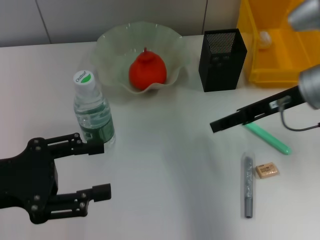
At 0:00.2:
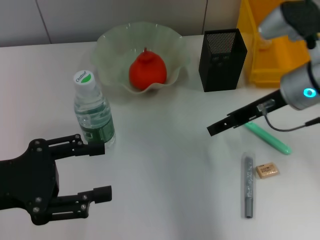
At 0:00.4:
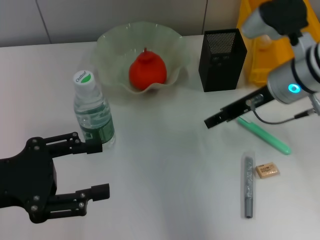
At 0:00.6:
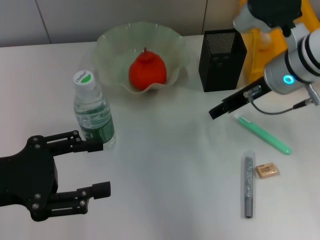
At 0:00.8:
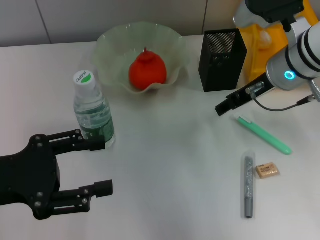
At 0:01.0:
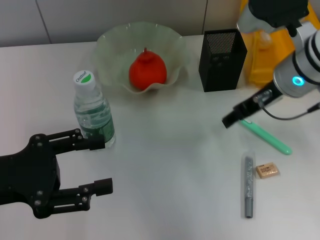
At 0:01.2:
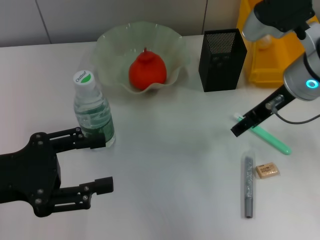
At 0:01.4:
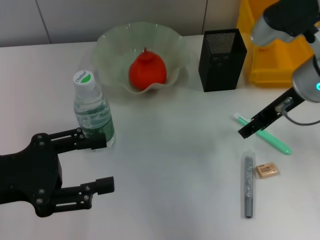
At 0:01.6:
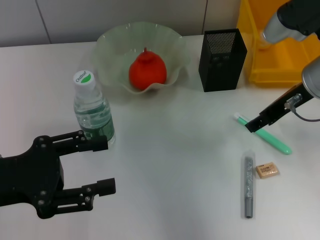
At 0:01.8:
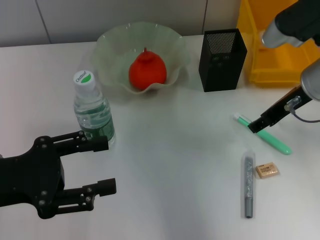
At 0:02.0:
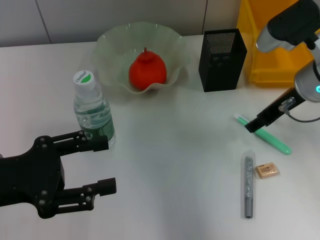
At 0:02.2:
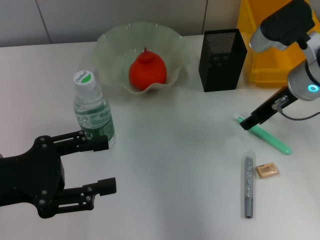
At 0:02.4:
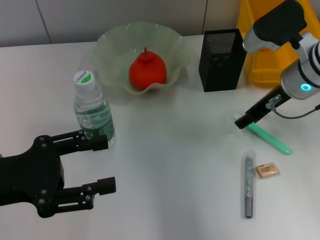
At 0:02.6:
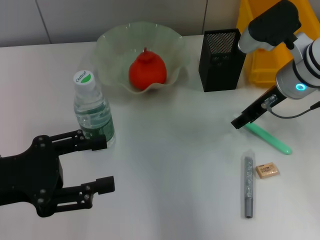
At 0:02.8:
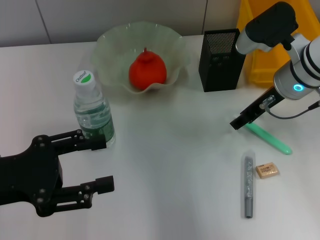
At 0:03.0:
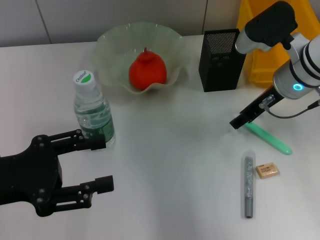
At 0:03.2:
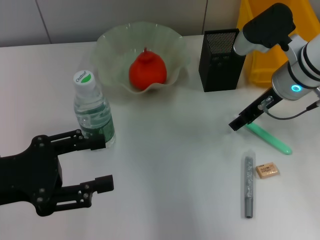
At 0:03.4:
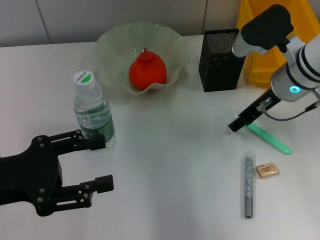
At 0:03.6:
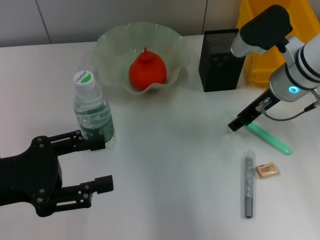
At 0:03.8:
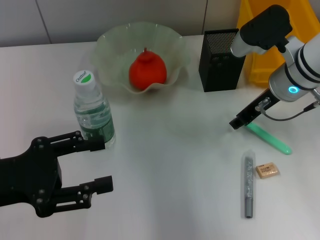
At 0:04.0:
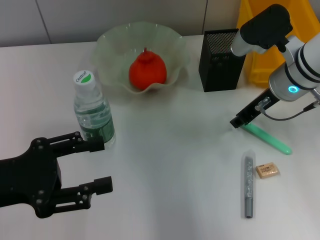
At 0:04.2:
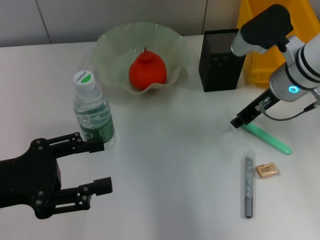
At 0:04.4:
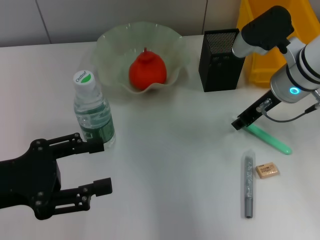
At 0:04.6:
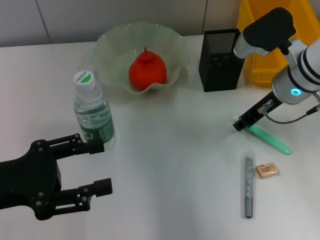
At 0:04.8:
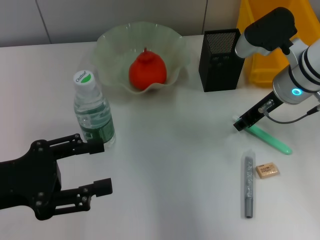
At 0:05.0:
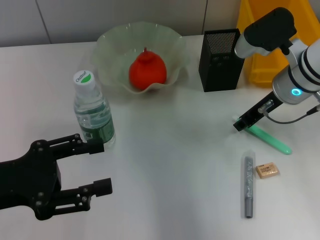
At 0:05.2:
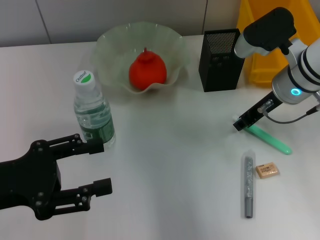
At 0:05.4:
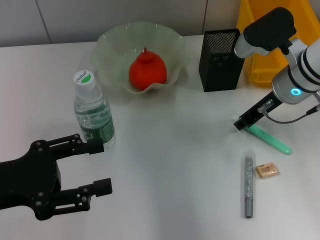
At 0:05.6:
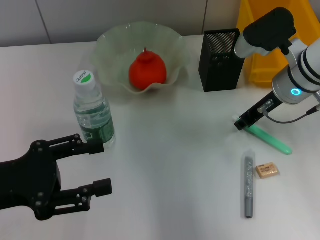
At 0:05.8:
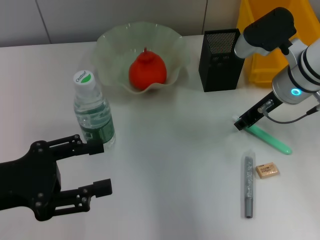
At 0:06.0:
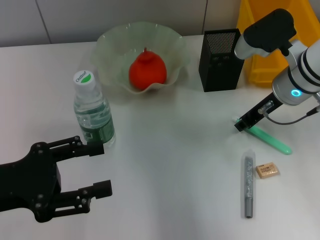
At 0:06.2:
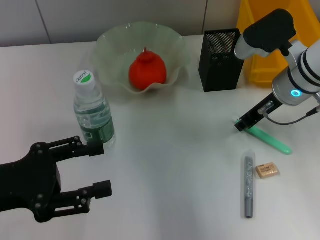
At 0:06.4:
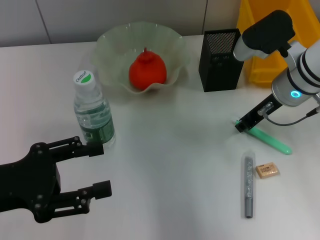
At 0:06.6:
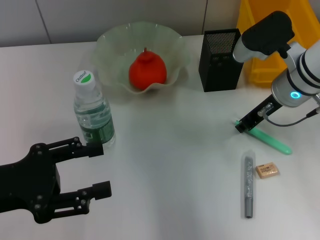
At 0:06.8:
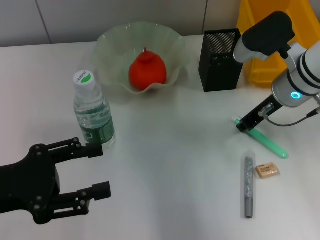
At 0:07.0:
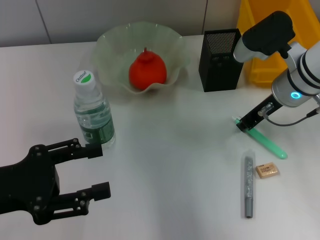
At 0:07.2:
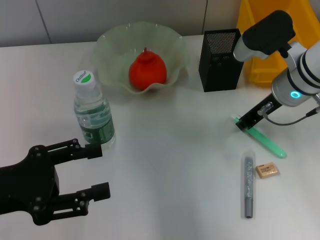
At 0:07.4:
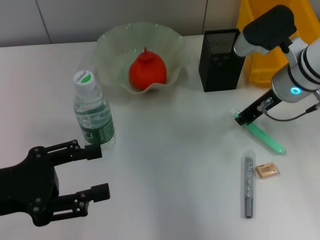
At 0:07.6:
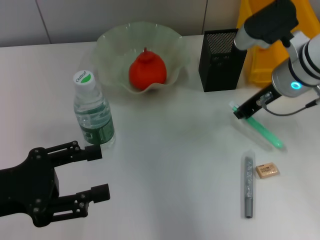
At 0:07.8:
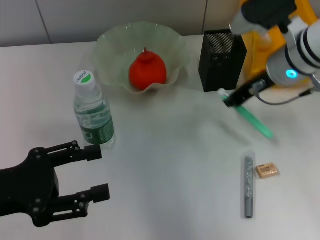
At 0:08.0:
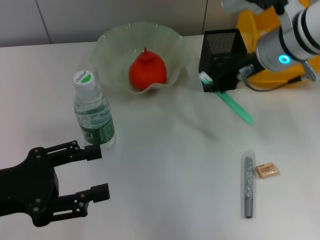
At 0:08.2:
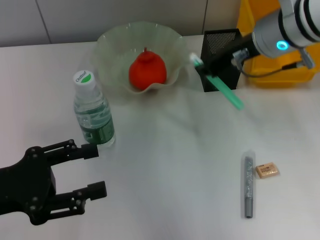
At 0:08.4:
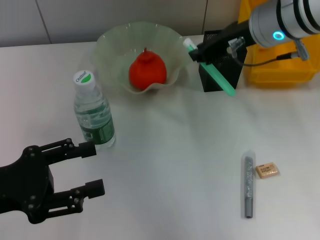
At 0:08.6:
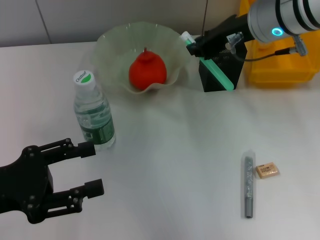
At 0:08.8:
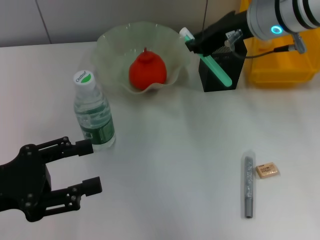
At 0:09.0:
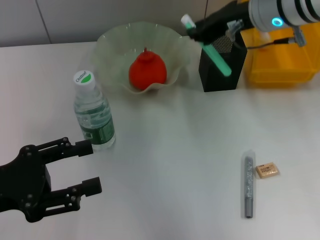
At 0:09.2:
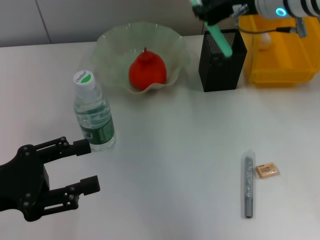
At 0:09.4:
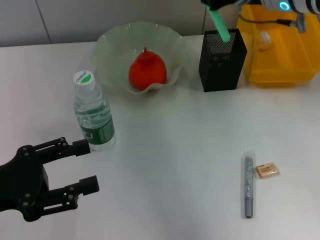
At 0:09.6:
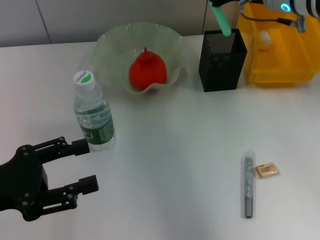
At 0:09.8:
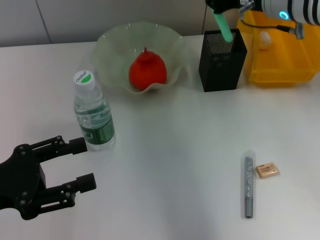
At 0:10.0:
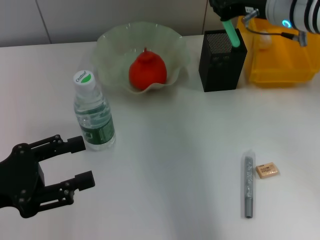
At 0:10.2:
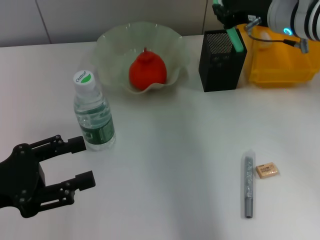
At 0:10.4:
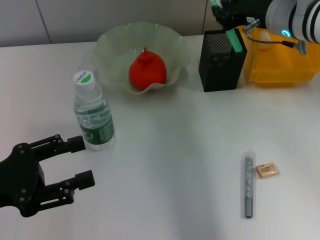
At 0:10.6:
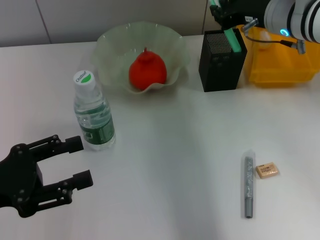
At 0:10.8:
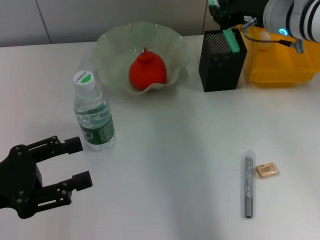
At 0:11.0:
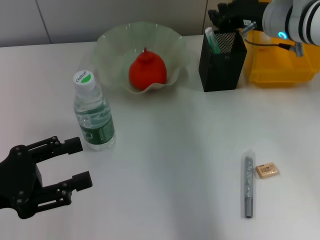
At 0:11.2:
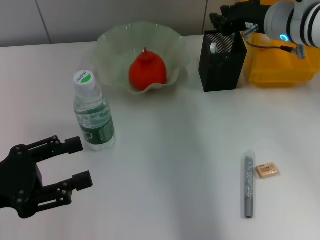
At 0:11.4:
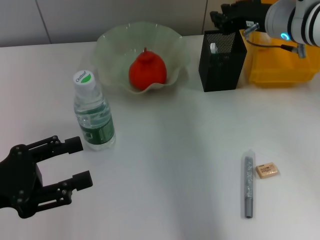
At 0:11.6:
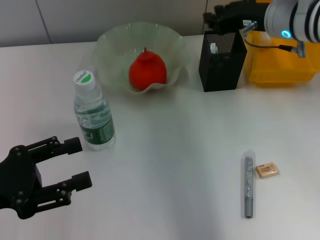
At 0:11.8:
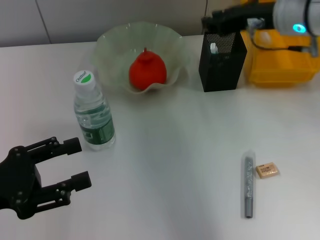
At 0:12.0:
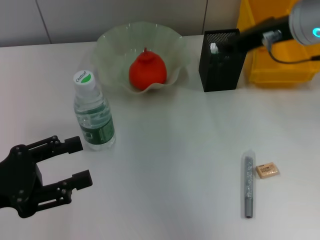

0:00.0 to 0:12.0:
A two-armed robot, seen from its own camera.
Step, 0:00.0 to 0:06.8: Grab the blue utility knife with the right hand.
Step, 0:07.0 to 0:11.0: Place the blue utility knife into the pen holder with the right hand.
0:01.6 to 0:03.0: The right gripper ends up some 5 cm from where it was.
0:03.0 to 0:04.4: The right gripper closes its fingers.
0:04.4 to 0:06.0: Both grippers stay put.
0:06.0 to 0:07.6: The grippers make only small movements.
0:07.6 to 0:09.0: The right gripper travels upward by some 10 cm.
0:09.0 to 0:10.4: The right gripper travels downward by roughly 5 cm.
0:10.4 to 0:12.0: The right gripper is displaced upward and backward by about 10 cm.

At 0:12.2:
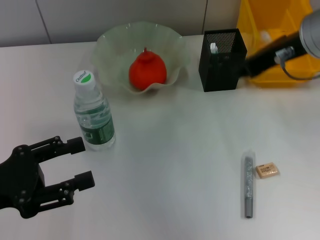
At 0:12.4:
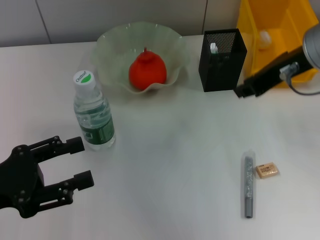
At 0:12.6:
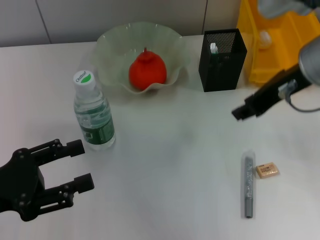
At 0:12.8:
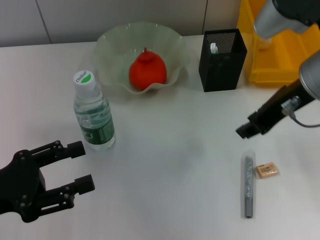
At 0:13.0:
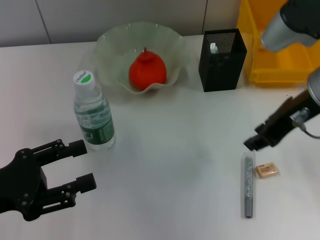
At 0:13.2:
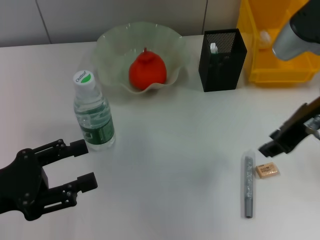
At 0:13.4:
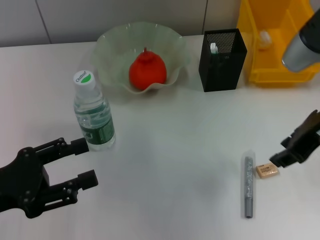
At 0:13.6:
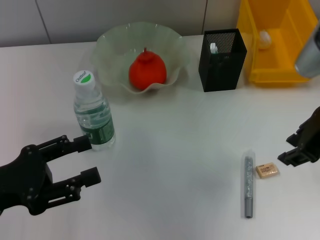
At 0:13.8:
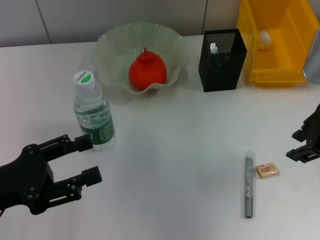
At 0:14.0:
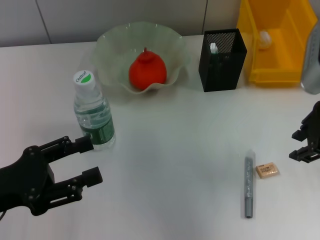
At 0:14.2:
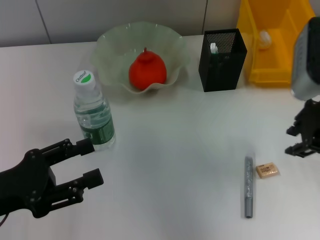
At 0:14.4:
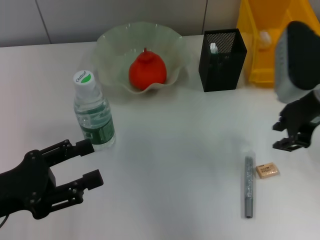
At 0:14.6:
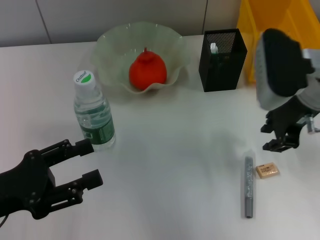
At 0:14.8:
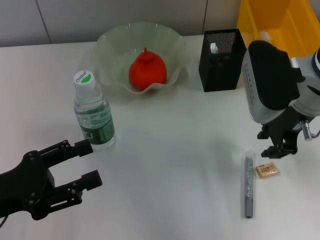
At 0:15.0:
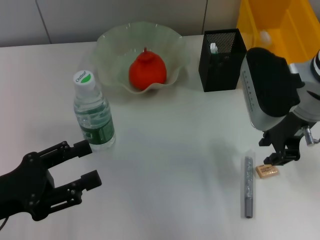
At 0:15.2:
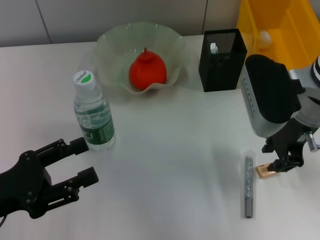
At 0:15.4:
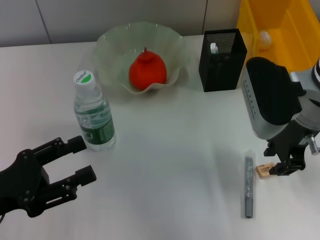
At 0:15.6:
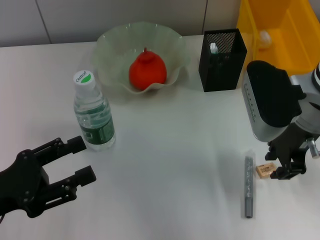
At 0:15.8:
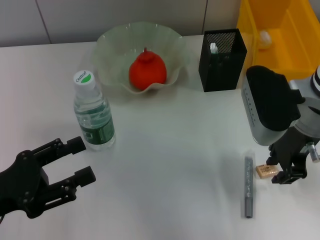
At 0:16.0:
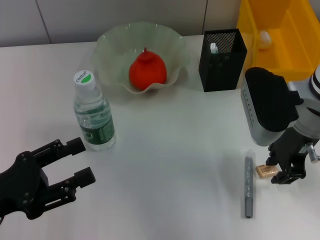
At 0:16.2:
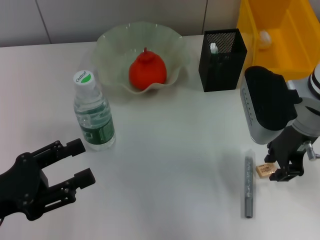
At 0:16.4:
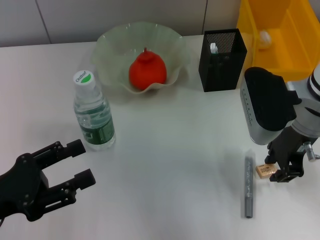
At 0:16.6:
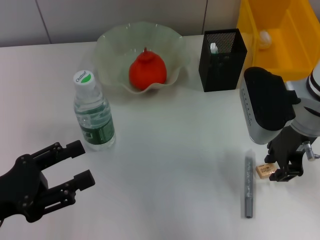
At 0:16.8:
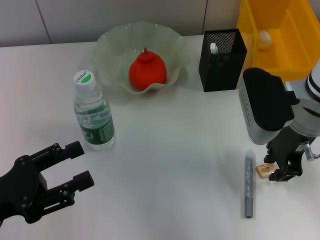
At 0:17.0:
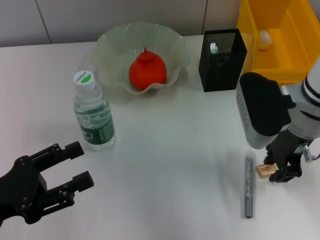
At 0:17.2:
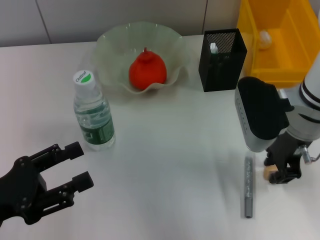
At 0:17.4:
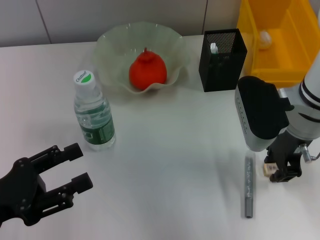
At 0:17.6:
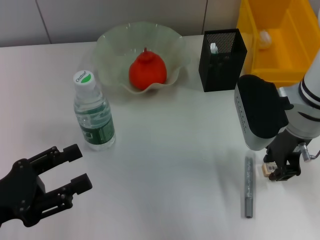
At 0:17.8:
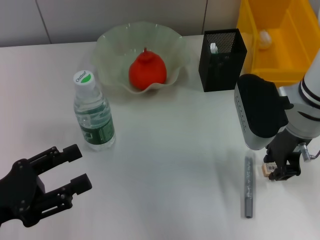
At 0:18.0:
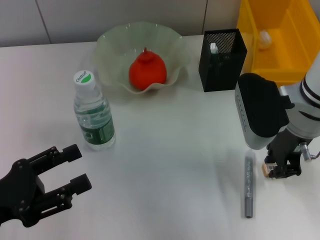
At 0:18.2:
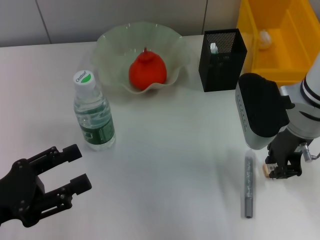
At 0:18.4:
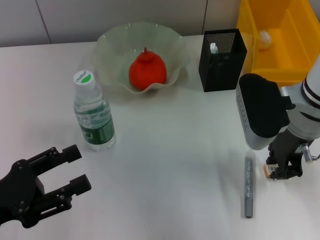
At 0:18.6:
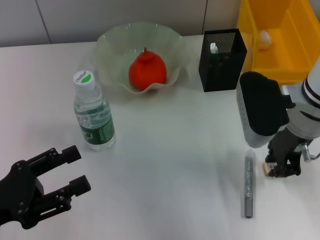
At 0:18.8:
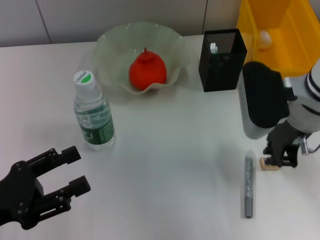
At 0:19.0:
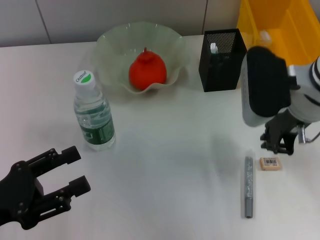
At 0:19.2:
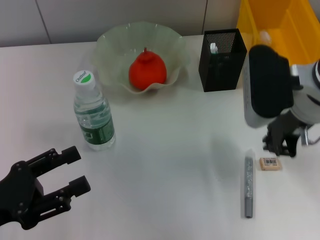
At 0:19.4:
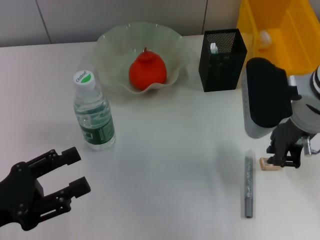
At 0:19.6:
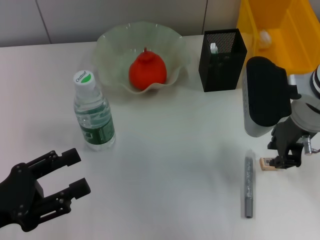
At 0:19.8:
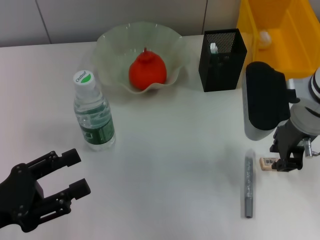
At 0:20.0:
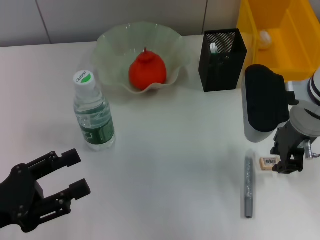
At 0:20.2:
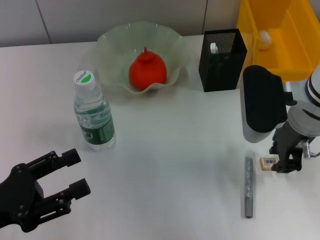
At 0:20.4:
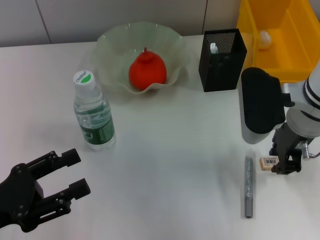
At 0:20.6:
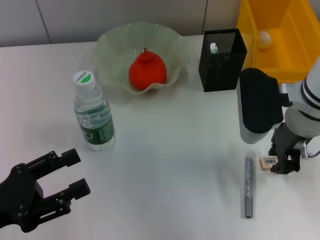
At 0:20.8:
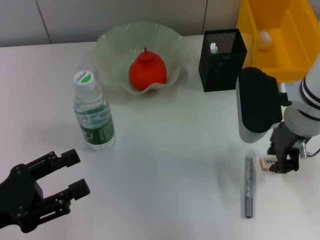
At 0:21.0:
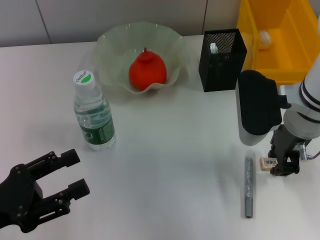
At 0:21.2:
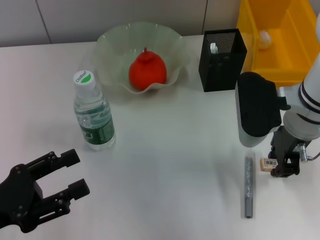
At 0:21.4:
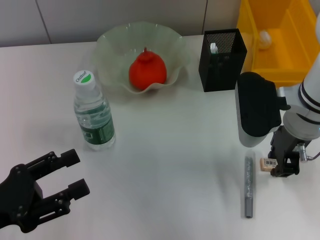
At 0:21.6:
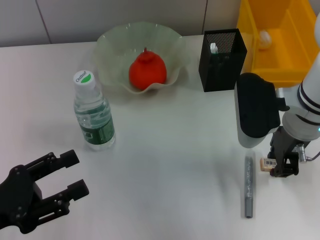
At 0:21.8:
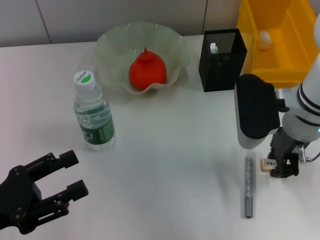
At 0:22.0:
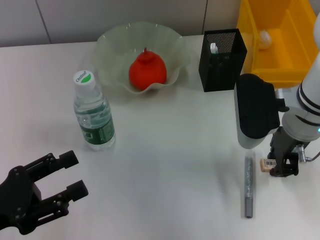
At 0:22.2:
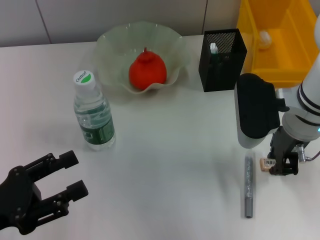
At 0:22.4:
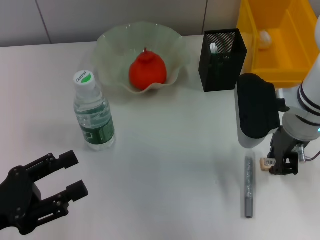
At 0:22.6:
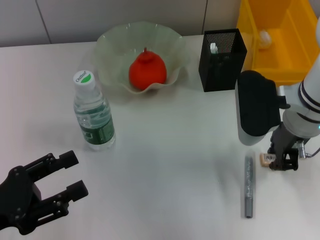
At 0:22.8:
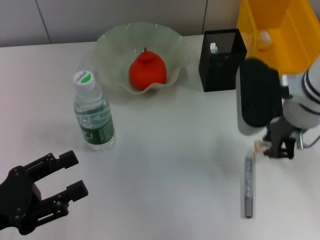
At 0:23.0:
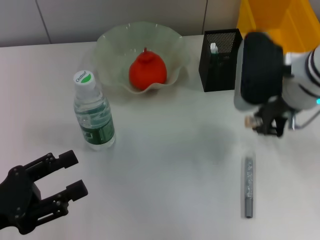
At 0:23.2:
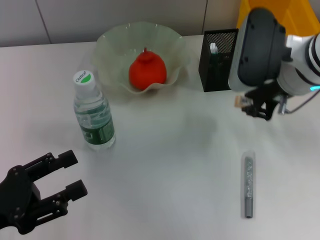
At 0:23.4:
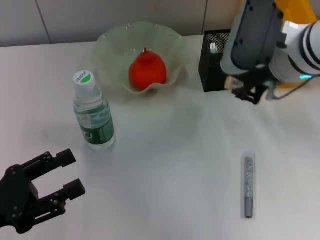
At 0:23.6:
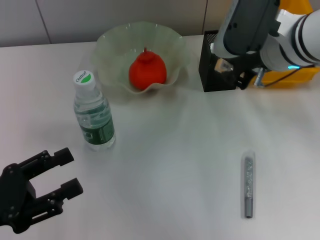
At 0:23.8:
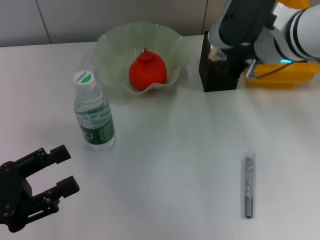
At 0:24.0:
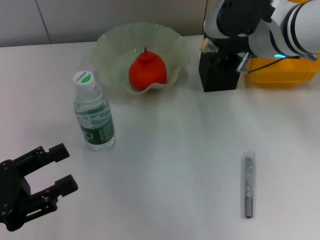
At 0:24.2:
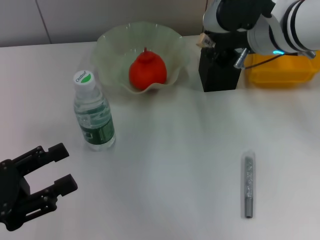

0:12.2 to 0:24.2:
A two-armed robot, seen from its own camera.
Step, 0:12.2 to 0:22.2: Grab the eraser with the right hand.
0:12.2 to 0:13.8: The right gripper is displaced backward by some 5 cm.
0:13.8 to 0:15.2: The right gripper heads to the left, covering some 5 cm.
0:15.2 to 0:16.6: The grippers stay close to where they were, moving slightly.
0:16.6 to 0:18.2: The two grippers keep their place.
0:18.2 to 0:21.2: There are only small adjustments of the grippers.
0:21.2 to 0:22.6: Both grippers stay put.
0:22.6 to 0:24.2: The right gripper moves upward, approximately 5 cm.
